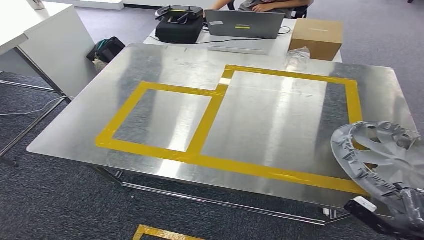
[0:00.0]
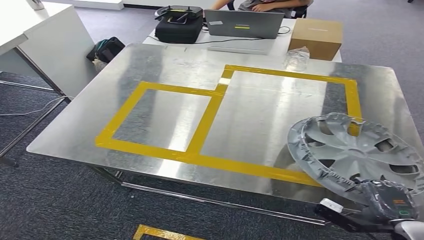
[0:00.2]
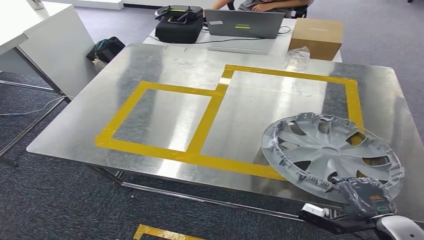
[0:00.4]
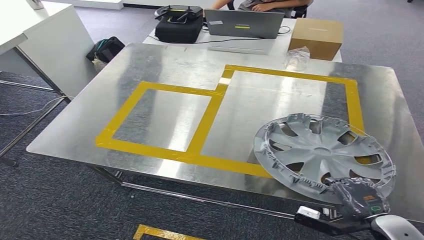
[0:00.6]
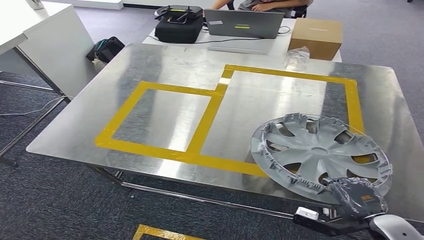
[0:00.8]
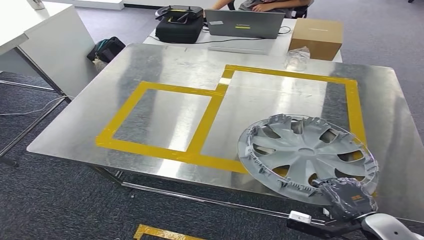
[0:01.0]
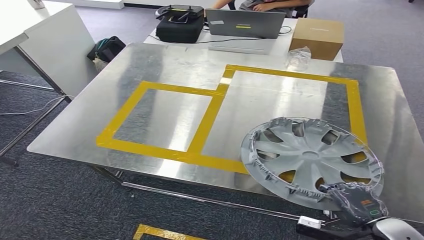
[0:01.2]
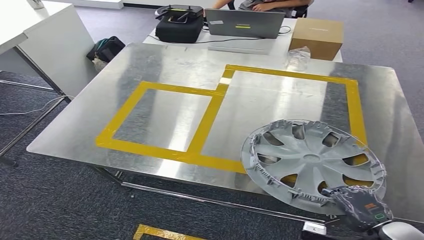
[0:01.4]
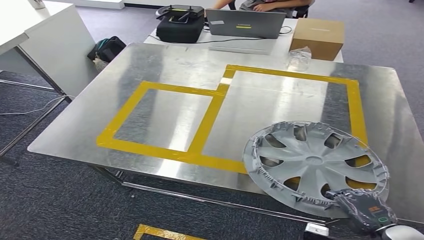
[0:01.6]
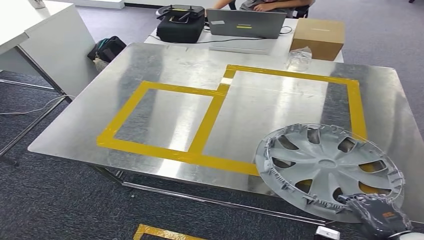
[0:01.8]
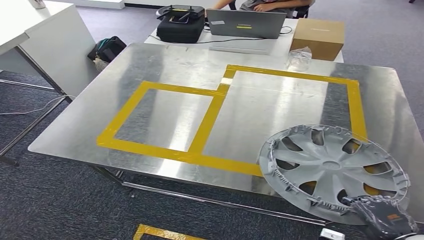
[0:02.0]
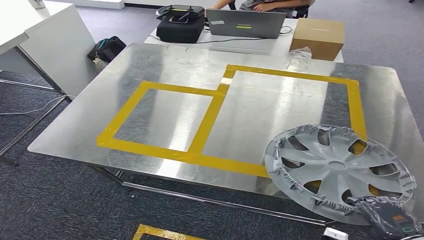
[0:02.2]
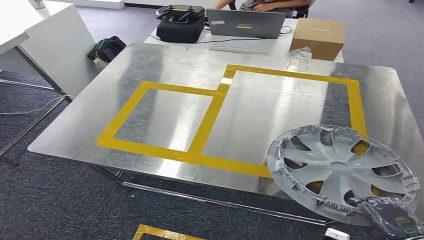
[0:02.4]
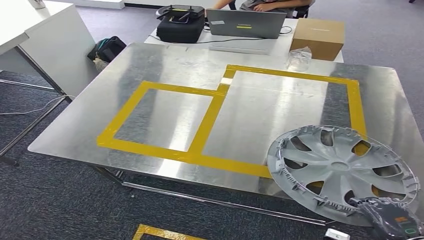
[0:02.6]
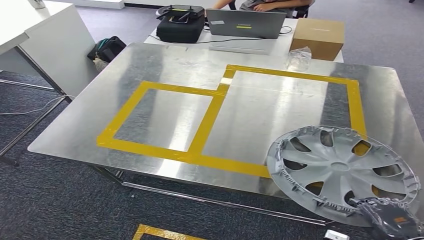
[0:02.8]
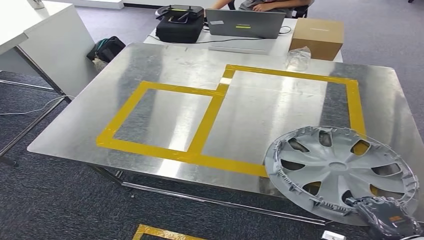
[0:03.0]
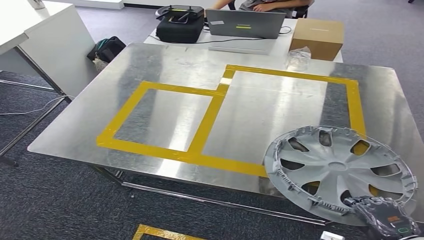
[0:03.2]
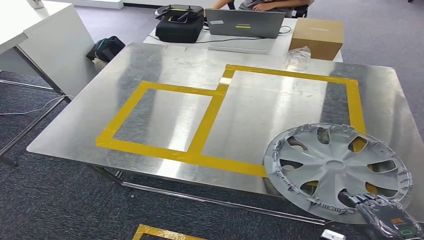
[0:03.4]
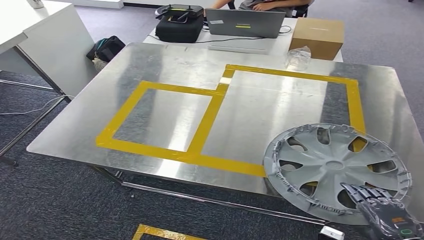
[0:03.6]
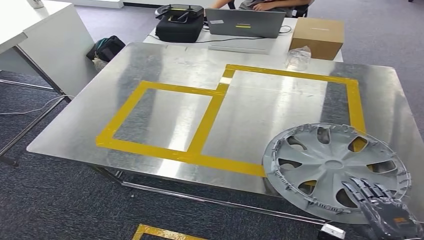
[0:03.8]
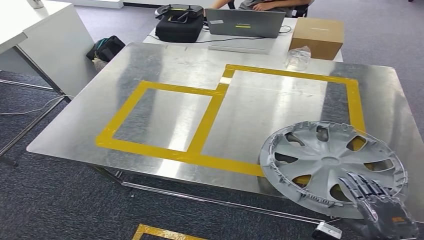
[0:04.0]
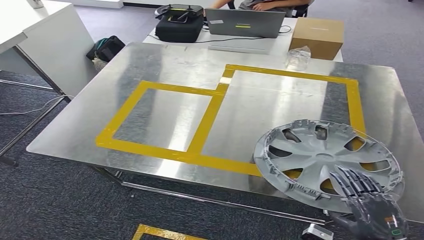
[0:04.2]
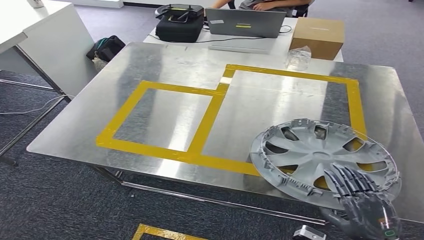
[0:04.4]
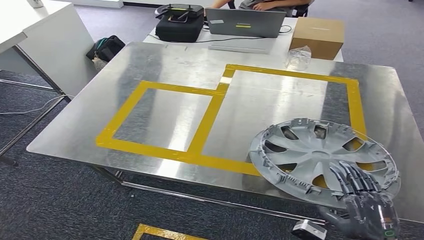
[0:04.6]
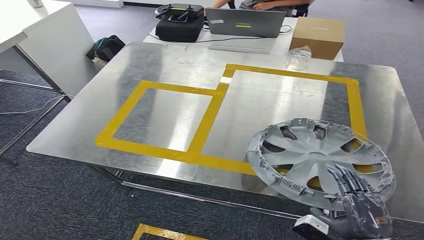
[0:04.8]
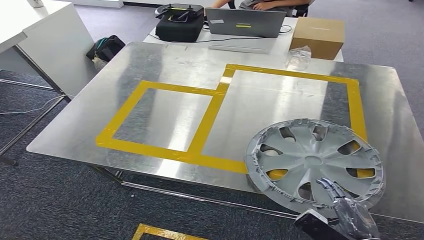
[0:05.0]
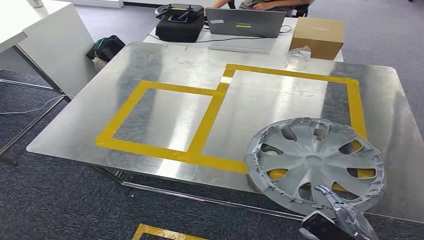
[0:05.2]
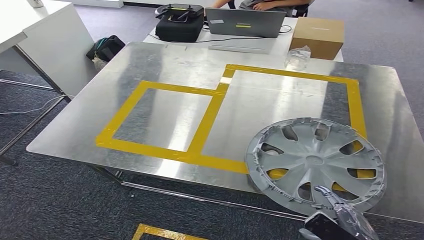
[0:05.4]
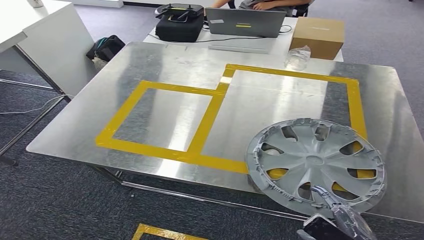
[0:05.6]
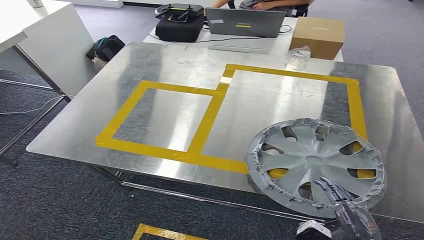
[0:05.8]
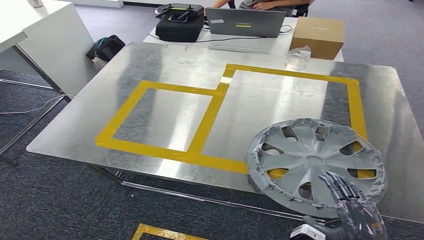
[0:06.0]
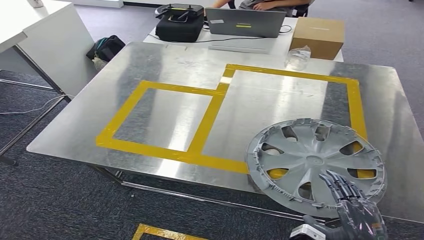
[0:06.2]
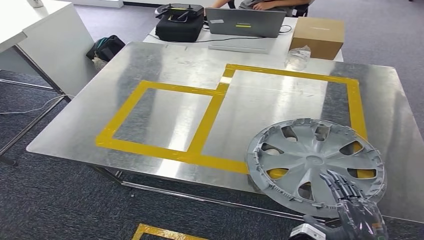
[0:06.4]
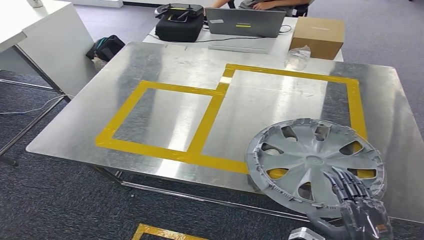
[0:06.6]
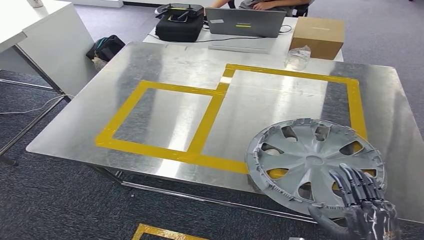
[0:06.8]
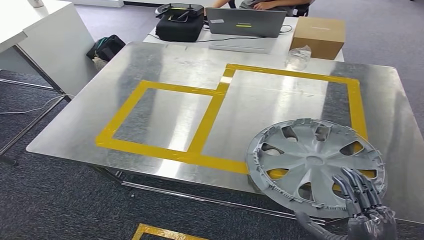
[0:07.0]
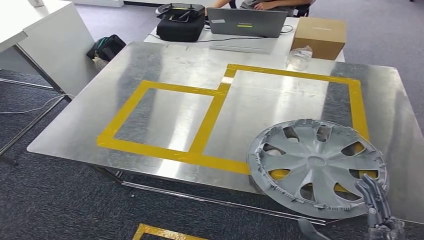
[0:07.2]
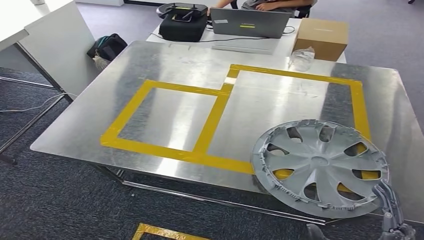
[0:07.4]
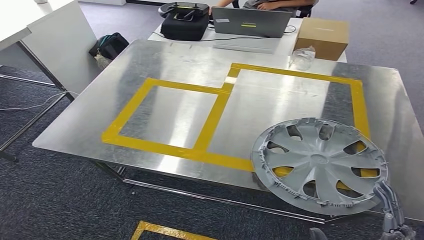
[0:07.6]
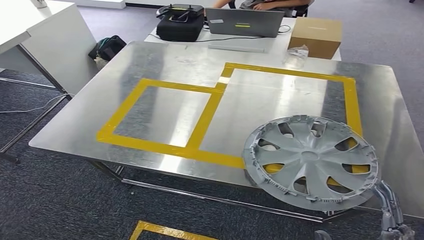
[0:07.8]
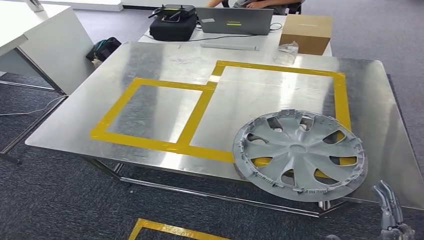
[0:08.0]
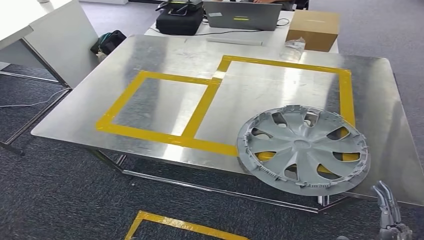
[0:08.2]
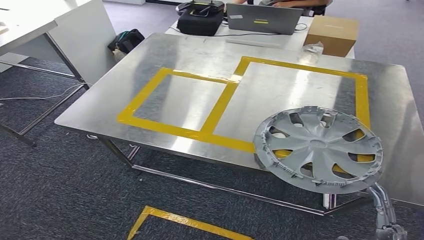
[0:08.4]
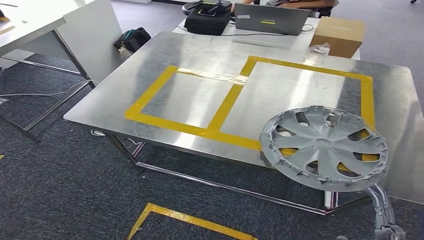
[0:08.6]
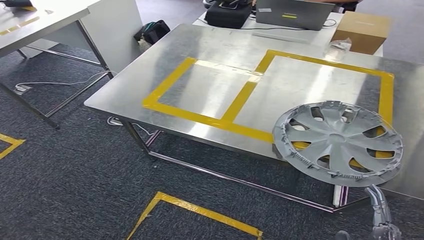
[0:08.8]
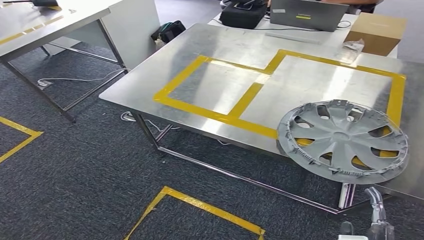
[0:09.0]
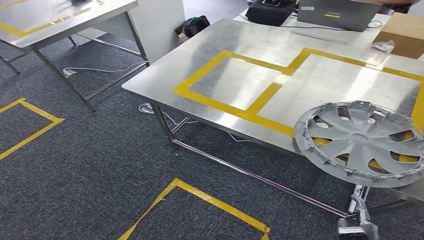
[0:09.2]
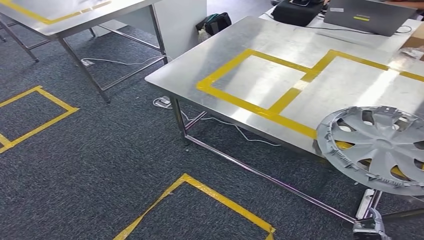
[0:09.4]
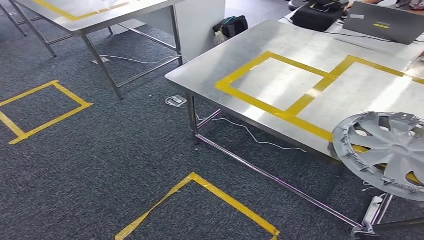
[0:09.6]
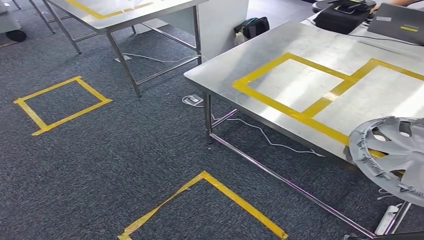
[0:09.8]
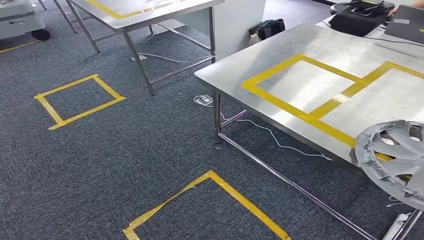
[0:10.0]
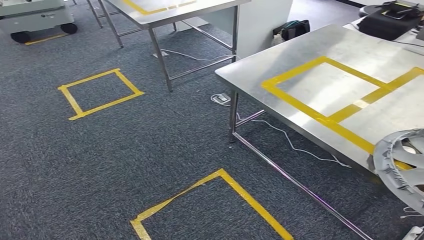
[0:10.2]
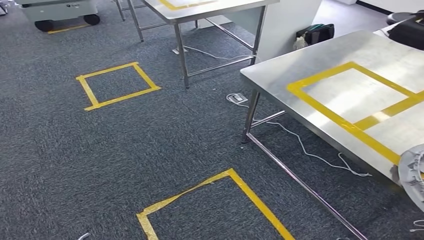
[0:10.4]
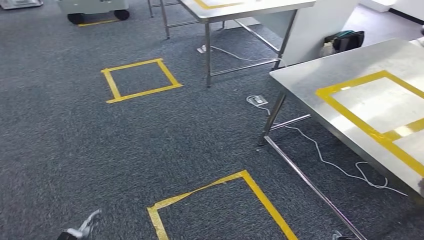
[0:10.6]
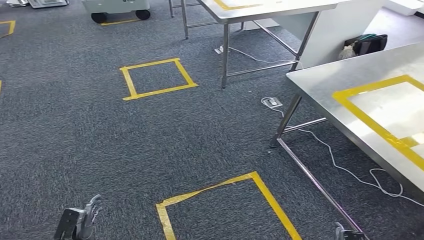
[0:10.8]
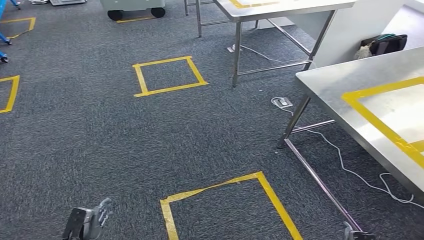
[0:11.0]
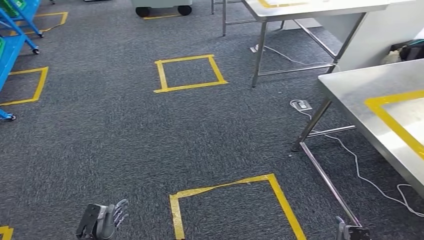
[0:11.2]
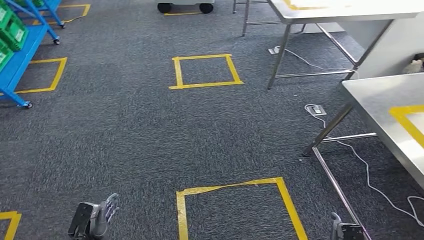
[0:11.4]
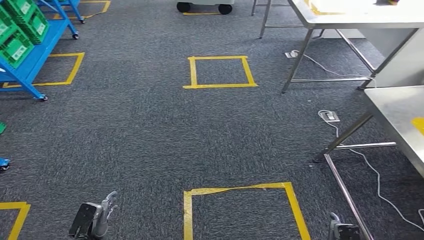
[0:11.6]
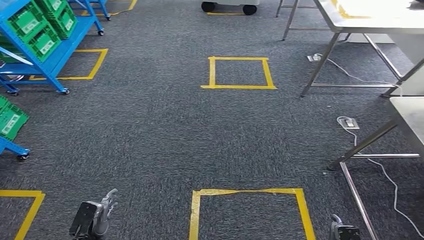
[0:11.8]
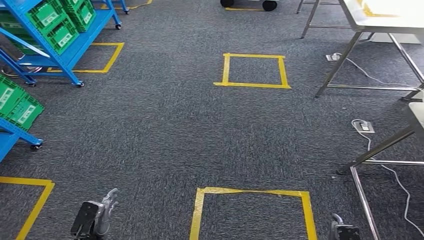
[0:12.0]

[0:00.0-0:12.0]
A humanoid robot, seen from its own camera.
Step, 0:00.0 to 0:07.6: Insert the small parts into the corresponding holes on the workbench.
0:01.6 to 0:03.0: The hands move only a little.
0:03.0 to 0:04.4: The right hand goes some 5 cm to the left.
0:06.0 to 0:07.6: The right hand moves roughly 5 cm.

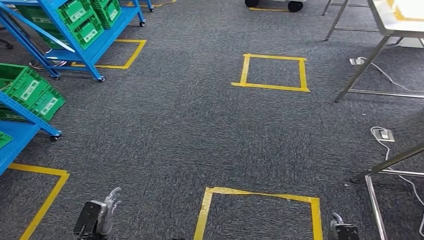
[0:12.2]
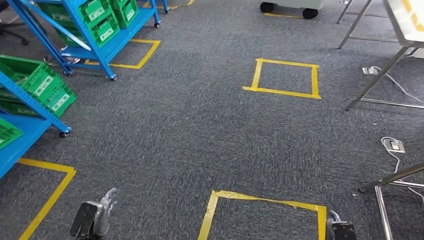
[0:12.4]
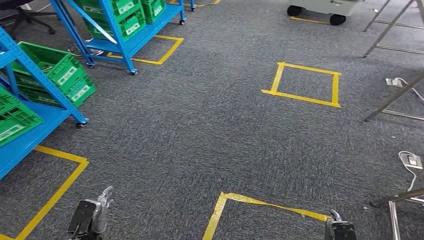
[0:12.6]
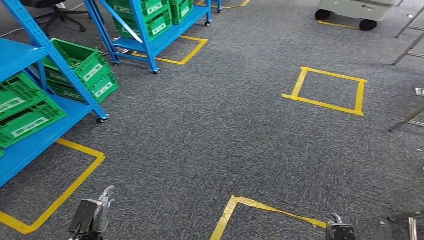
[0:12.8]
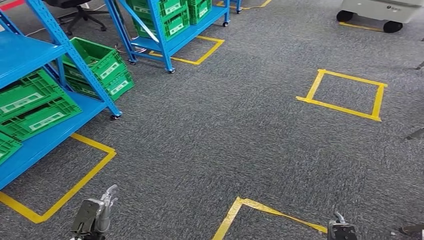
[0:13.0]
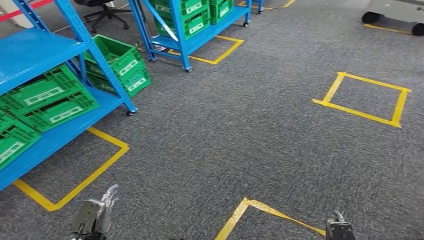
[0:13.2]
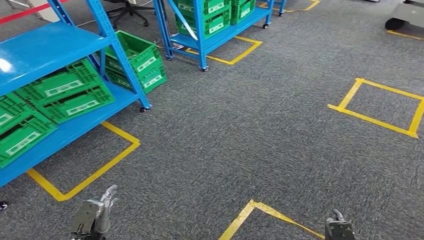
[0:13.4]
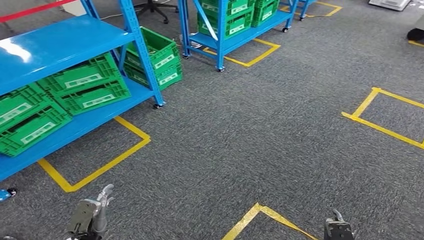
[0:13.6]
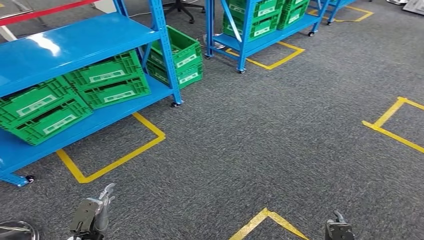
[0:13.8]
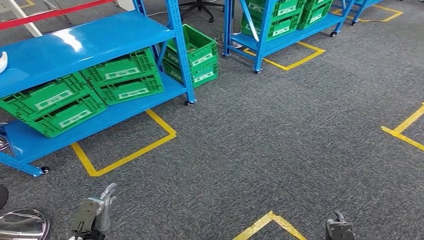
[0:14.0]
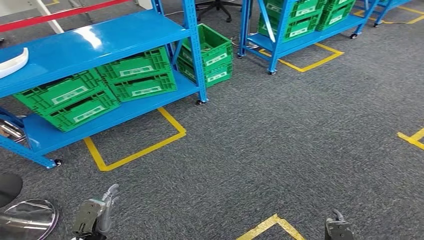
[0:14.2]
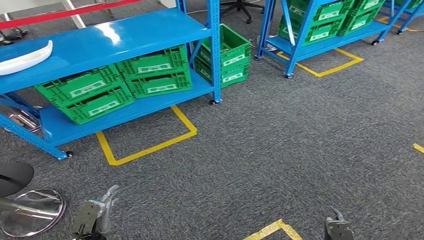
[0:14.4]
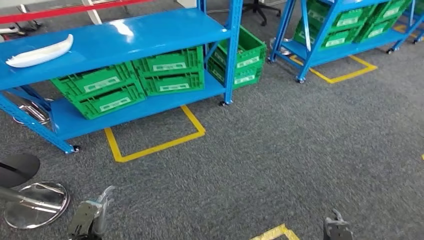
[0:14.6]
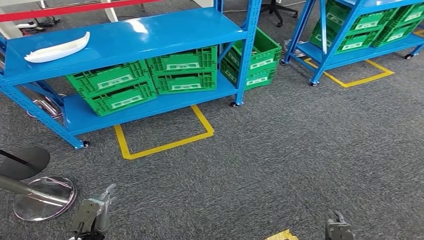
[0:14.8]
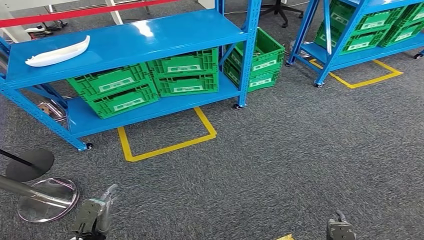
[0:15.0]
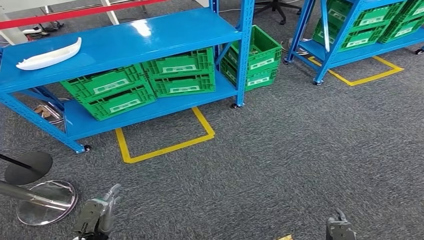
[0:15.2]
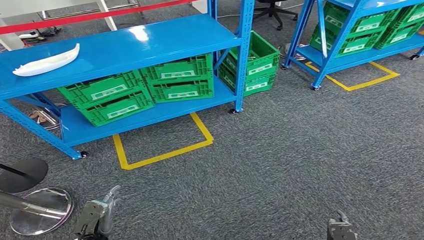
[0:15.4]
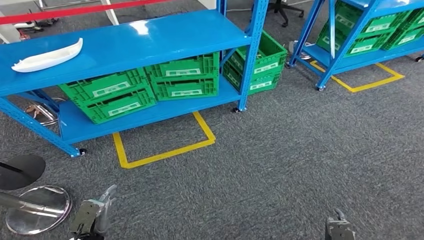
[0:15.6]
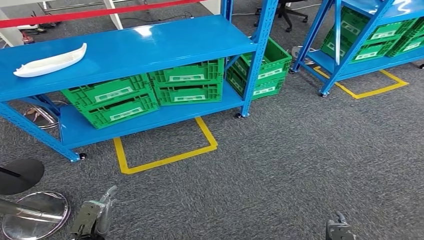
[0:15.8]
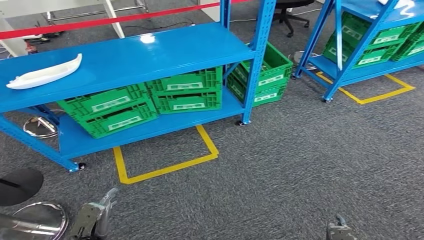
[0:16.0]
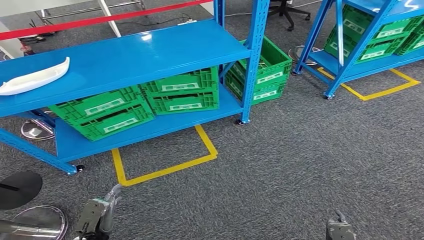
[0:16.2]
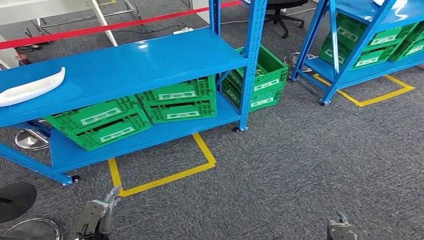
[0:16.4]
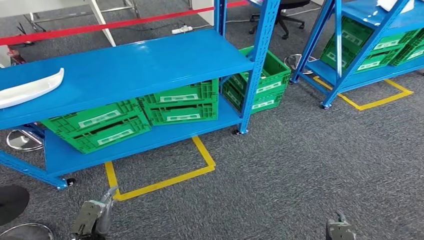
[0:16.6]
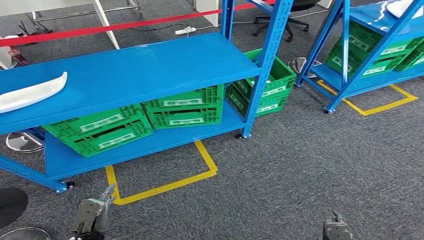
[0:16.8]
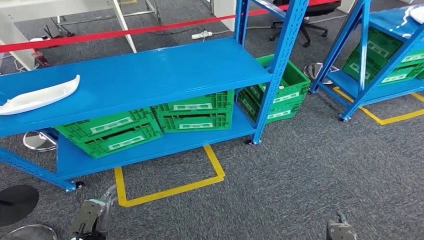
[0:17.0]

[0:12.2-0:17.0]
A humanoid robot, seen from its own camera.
Step, 0:12.2 to 0:17.0: Move to the initial position of the workbench.
